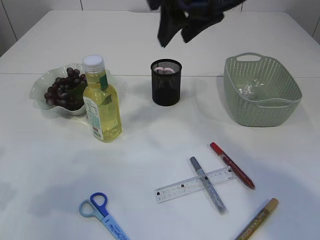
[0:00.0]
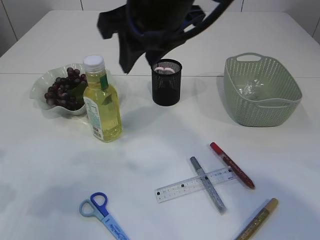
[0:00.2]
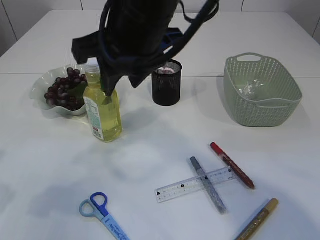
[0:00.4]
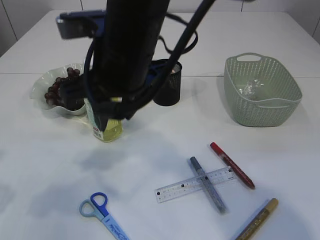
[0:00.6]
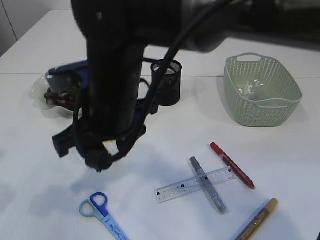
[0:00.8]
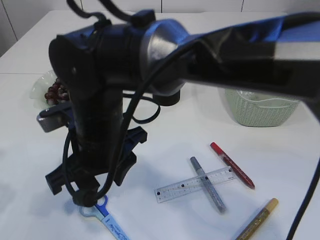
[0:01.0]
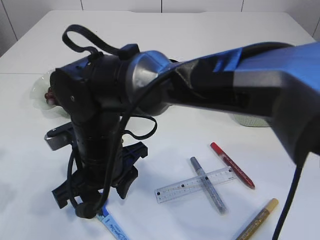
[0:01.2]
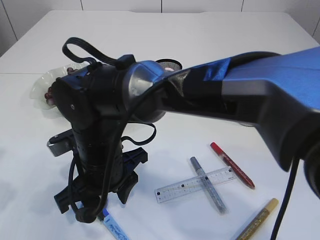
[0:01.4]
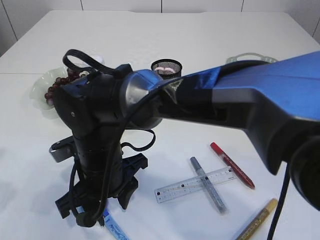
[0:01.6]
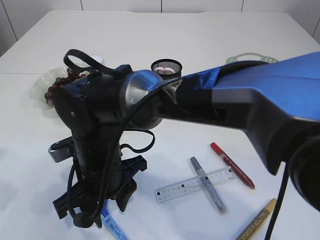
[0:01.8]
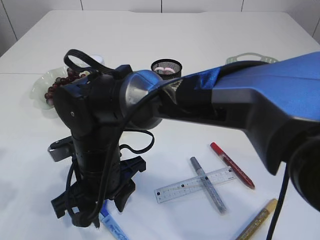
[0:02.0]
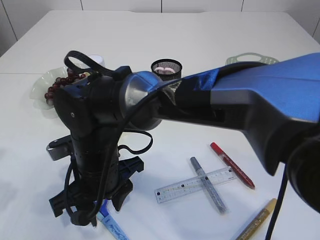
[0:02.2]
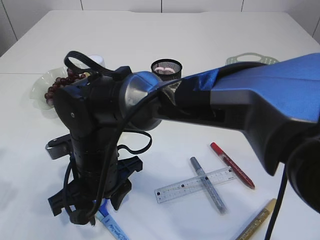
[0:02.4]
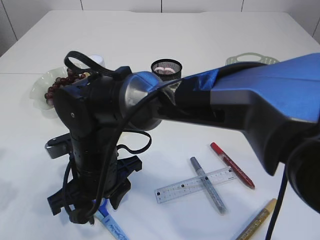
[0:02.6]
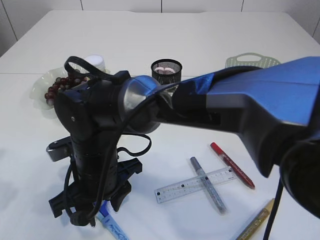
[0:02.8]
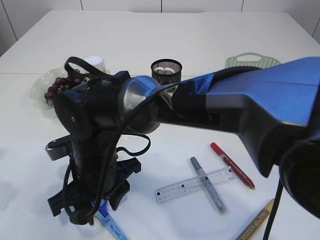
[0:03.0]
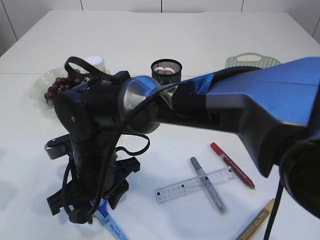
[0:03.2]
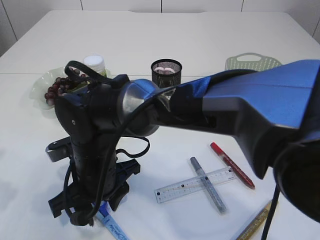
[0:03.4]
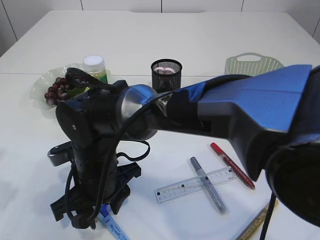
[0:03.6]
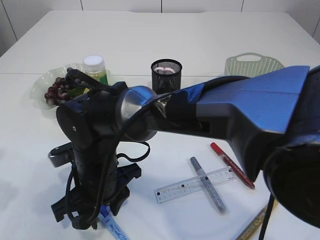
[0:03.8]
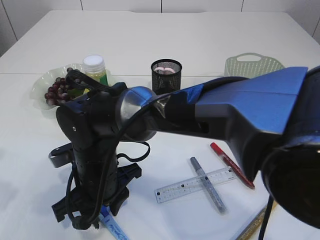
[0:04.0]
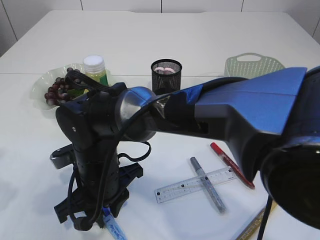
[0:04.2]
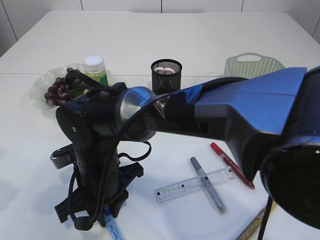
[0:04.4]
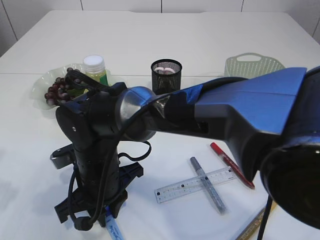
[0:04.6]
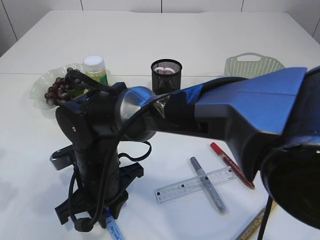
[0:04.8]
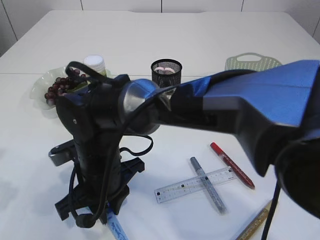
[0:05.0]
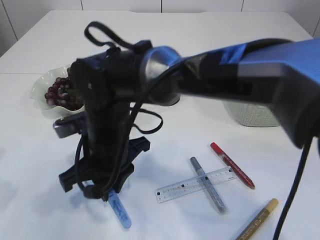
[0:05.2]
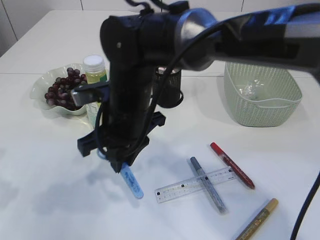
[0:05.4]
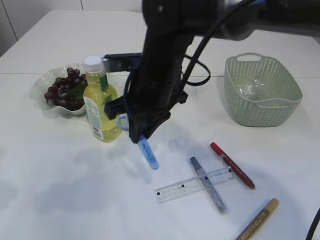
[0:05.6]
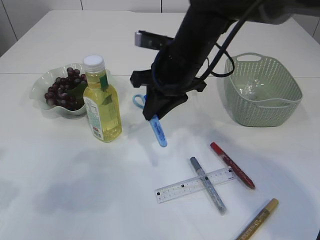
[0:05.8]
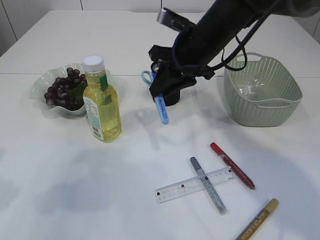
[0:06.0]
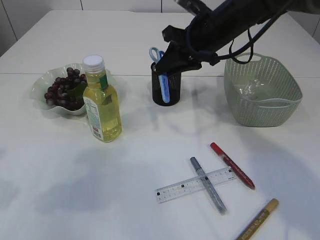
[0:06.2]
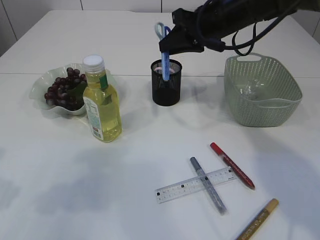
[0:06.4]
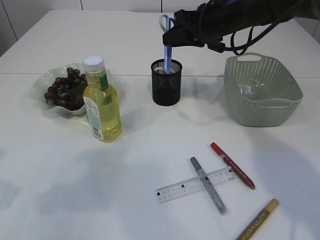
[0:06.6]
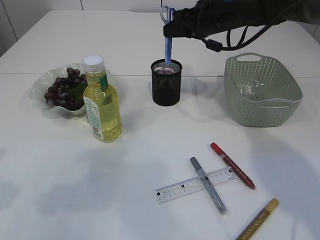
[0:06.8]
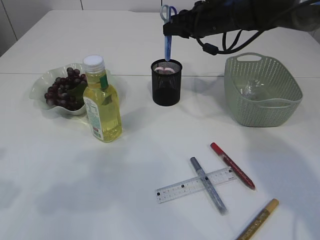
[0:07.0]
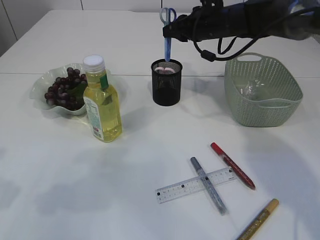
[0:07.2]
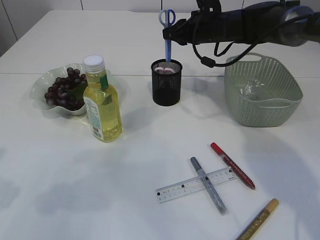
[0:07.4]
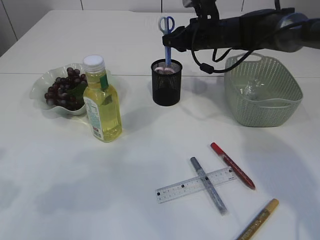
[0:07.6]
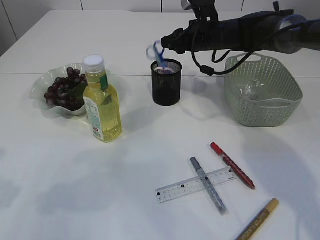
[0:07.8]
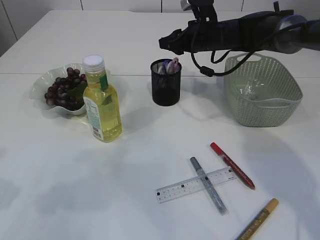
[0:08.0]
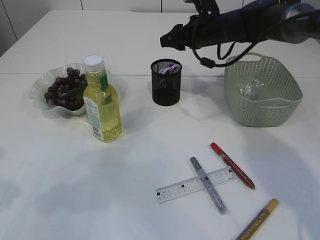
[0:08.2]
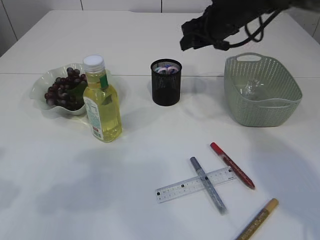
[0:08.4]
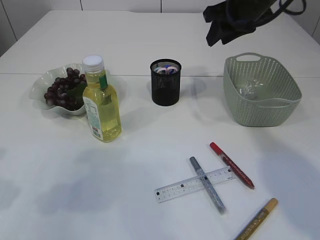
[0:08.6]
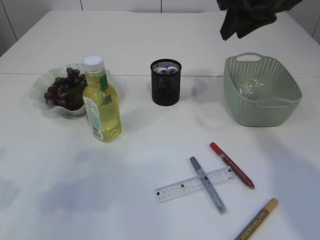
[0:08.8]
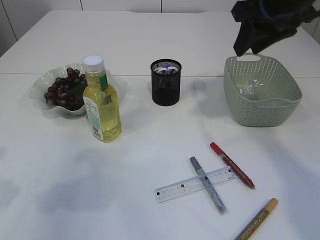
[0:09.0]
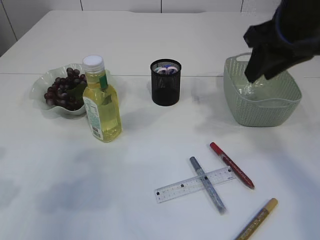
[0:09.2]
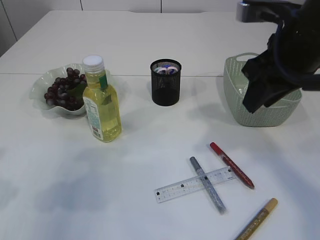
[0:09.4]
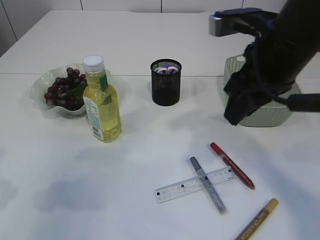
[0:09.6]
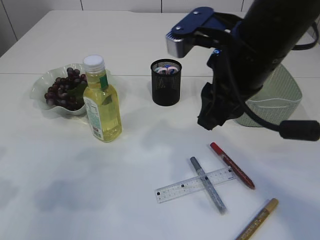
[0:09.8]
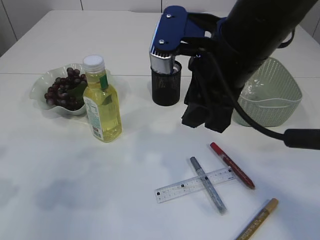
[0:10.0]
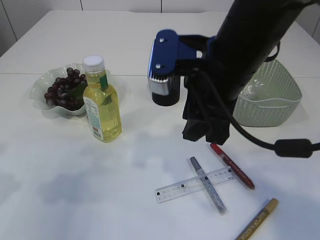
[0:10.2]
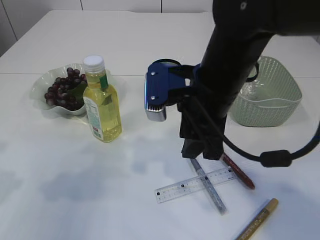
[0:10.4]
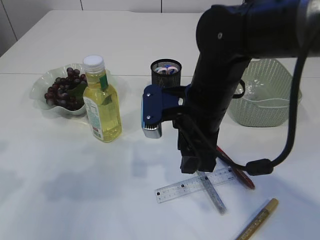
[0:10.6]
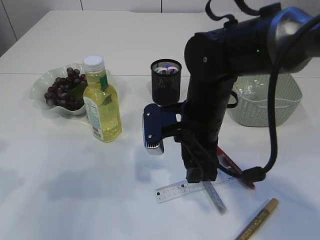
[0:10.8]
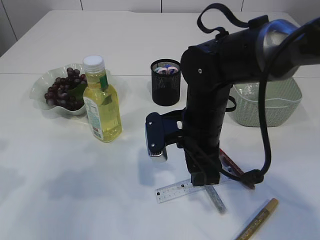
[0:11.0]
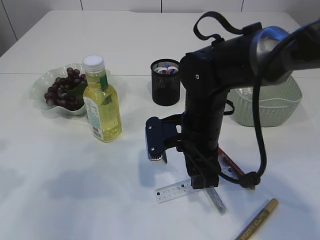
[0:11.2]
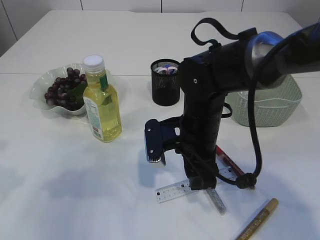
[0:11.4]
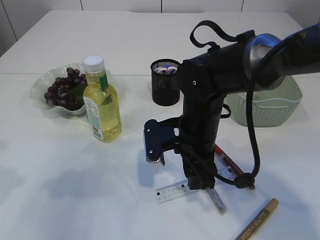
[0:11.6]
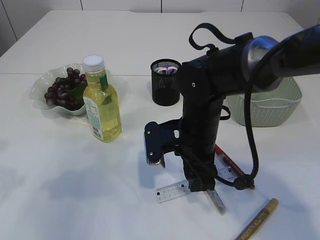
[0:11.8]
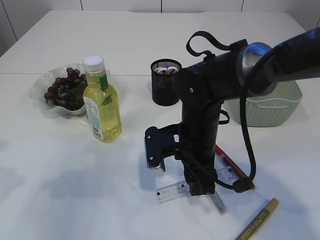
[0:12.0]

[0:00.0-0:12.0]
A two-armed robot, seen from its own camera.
Step, 0:00.0 to 0:05.2: pick up the blue scissors.
Step, 0:05.4 to 0:07.8: Place the blue scissors into the pen holder.
0:00.0 to 0:01.6: The right gripper goes approximately 30 cm downward and to the left.
0:01.6 to 0:04.4: There are only small adjustments of the grippers.
0:04.4 to 0:06.0: The right gripper goes approximately 25 cm to the right, upward and forward.
0:06.0 to 0:07.6: The right gripper travels forward and to the right by about 15 cm.
0:07.6 to 0:09.0: The right gripper shifts roughly 20 cm backward and upward.
0:09.0 to 0:10.4: The right gripper goes roughly 15 cm to the left, downward and backward.
0:10.4 to 0:12.0: The right gripper shifts roughly 10 cm downward.

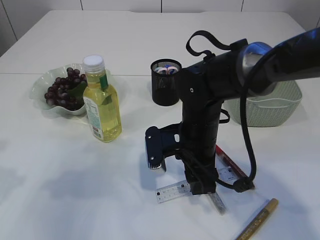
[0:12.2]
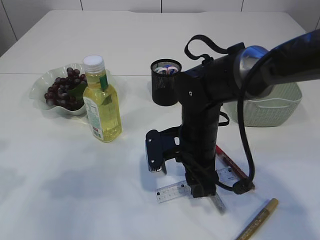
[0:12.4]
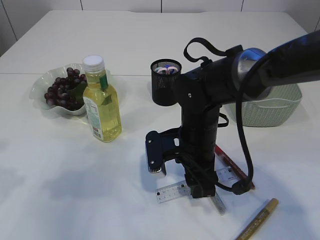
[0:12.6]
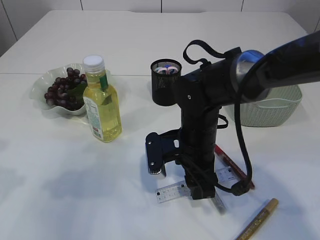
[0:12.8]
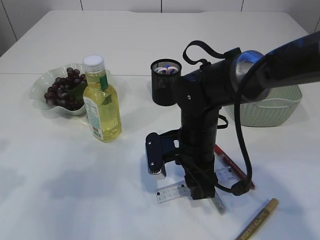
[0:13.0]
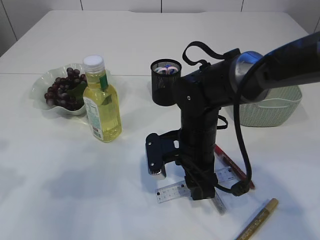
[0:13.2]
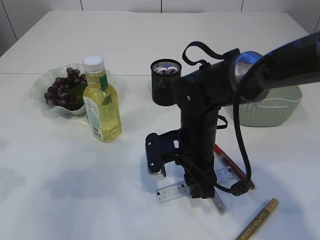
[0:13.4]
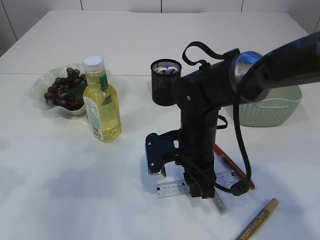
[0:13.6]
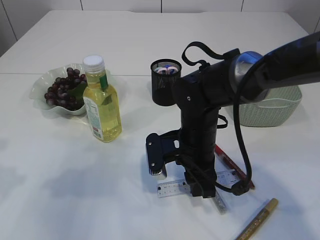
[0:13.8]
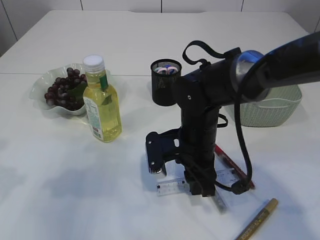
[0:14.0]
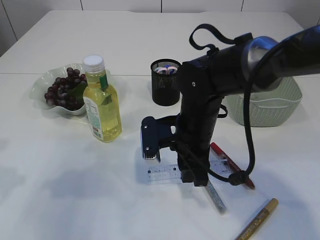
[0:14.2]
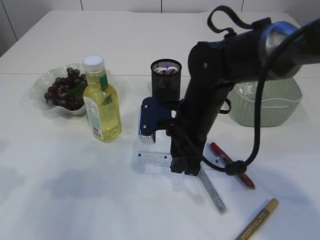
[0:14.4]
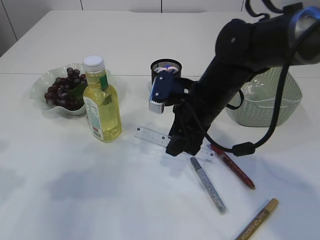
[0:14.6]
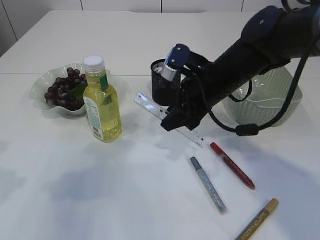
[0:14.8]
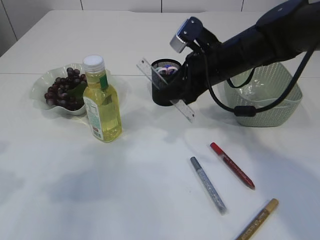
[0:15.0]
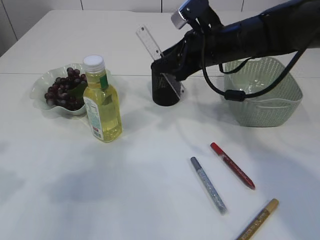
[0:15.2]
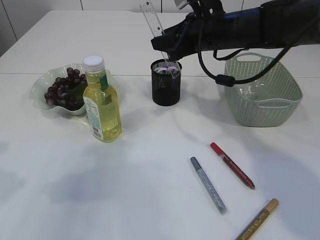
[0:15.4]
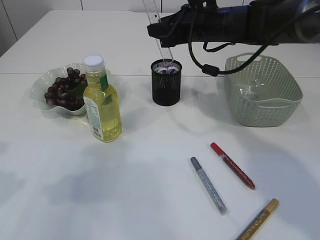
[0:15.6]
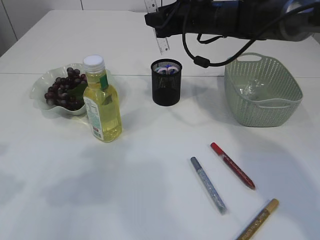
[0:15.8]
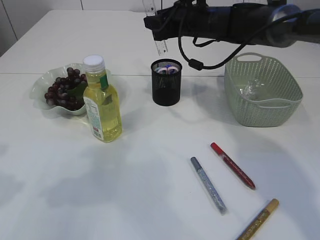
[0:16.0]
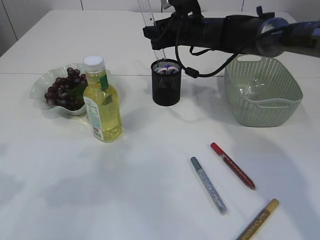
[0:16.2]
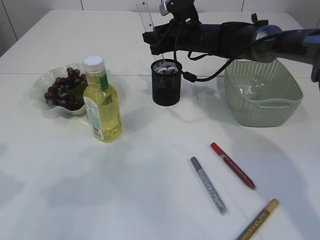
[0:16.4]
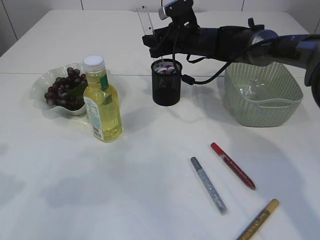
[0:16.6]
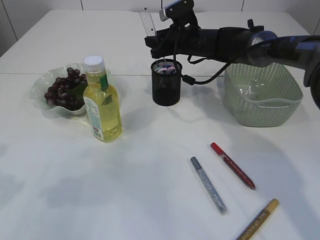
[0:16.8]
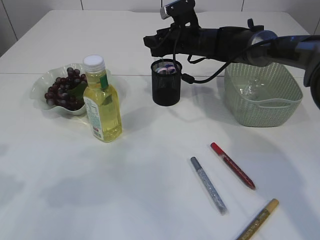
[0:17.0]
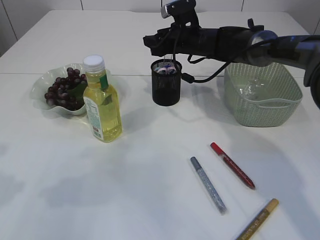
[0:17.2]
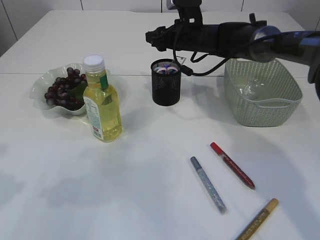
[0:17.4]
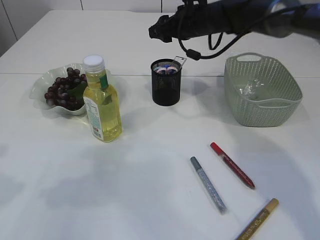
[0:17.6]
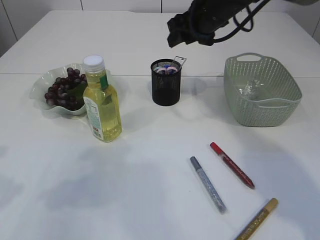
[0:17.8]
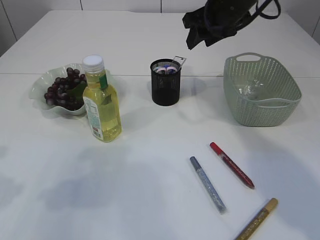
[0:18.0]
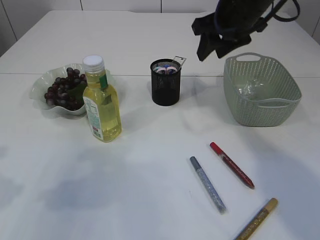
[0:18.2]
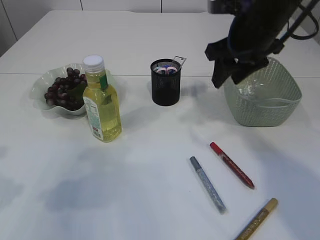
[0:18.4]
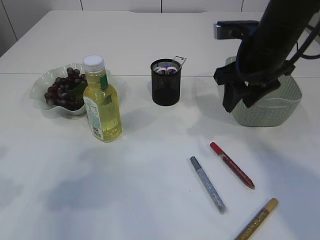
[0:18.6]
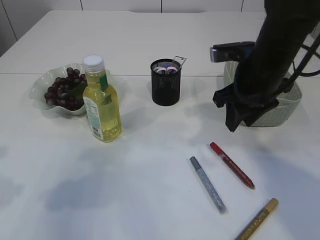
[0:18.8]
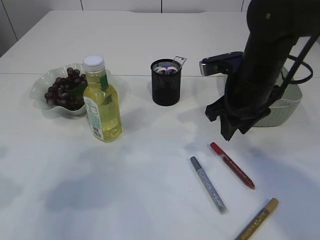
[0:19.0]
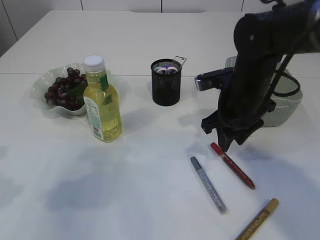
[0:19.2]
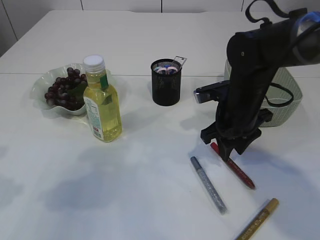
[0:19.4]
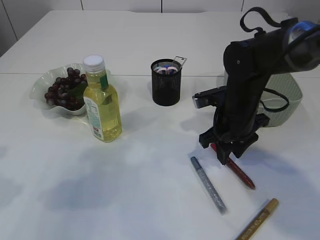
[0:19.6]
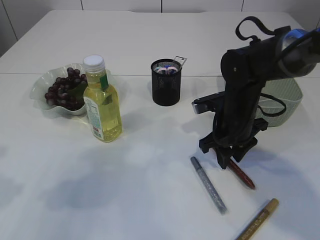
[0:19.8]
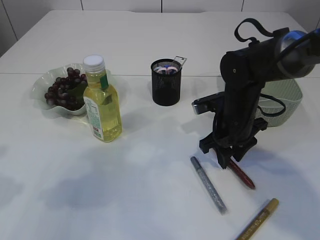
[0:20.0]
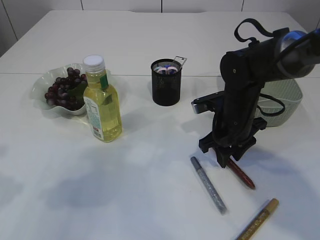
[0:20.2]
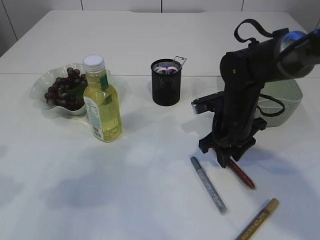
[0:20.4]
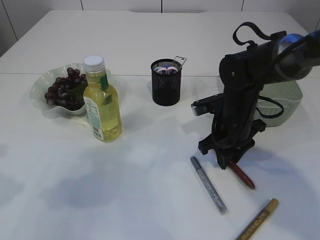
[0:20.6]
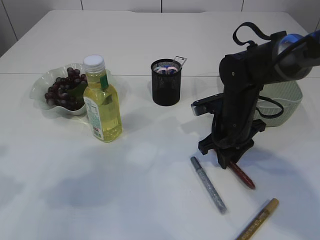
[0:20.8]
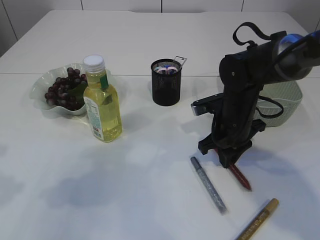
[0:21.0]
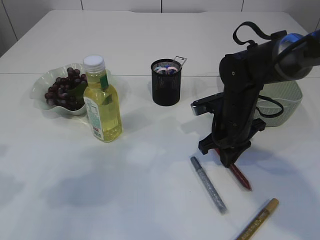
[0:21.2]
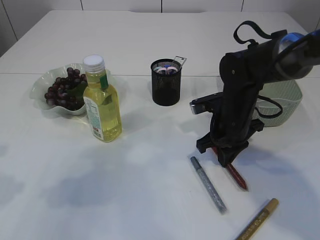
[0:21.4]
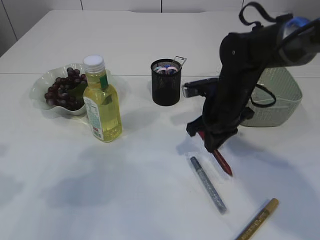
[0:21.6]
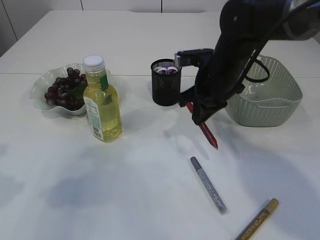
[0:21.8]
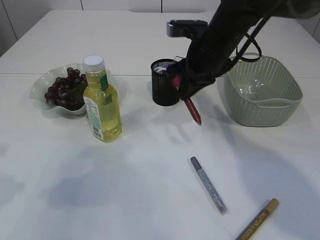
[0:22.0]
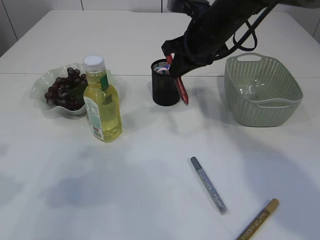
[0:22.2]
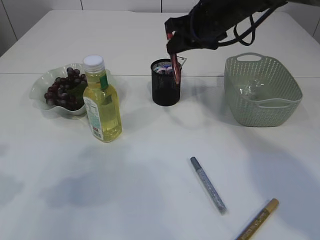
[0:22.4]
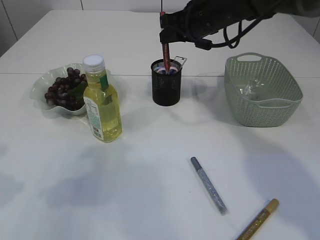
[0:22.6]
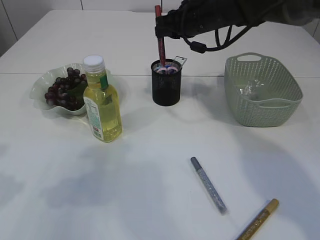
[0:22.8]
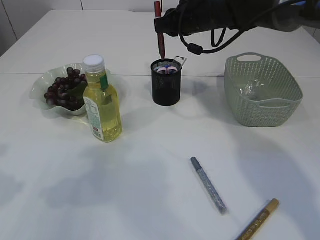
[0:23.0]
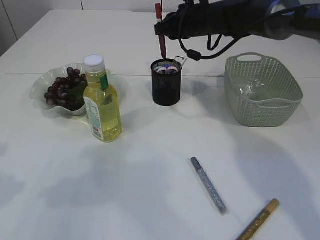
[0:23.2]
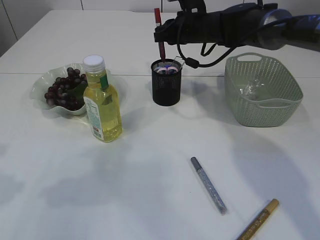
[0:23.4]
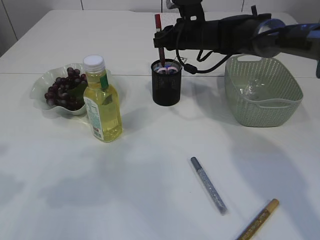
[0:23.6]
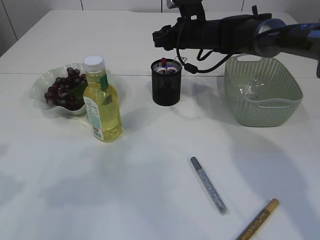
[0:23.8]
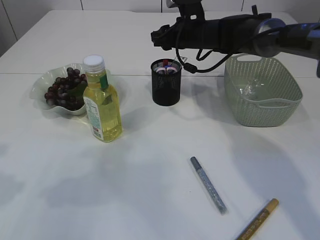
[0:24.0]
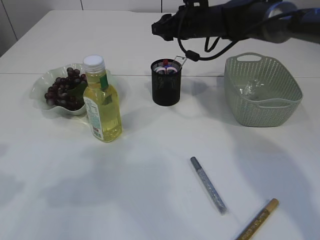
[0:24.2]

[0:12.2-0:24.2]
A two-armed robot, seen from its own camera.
Step, 0:12.2 to 0:14.8: pick up the ruler.
Step, 0:15.0 to 0:17.8: Place the ruler into the pen holder.
Step, 0:18.0 to 0:21.6: pick up the red glue.
Step, 0:21.8 to 0:23.8: place the red glue into the pen holder.
0:12.2 to 0:13.8: There are only small adjustments of the grippers.
0:13.8 to 0:15.2: The right gripper moves upward and forward, some 15 cm.
0:15.2 to 0:16.6: The right gripper heads forward, covering roughly 15 cm.
0:16.6 to 0:18.2: The right gripper travels upward, backward and to the right by roughly 15 cm.
0:18.2 to 0:19.8: The right gripper moves downward, some 20 cm.
0:19.8 to 0:21.2: The right gripper closes its fingers.
0:21.2 to 0:22.6: The right gripper heads upward and forward, covering about 20 cm.
0:22.6 to 0:24.2: The right gripper is displaced forward by some 5 cm, and opens its fingers.
